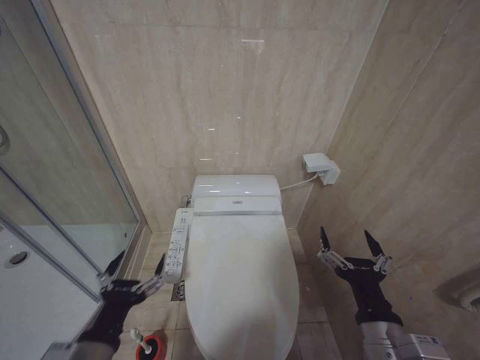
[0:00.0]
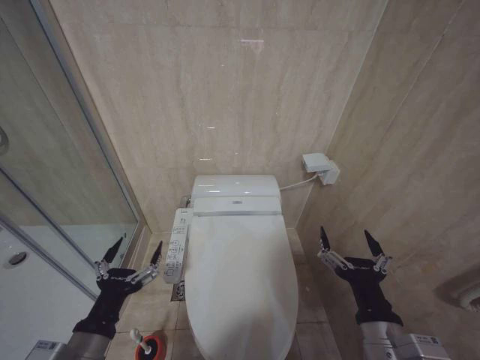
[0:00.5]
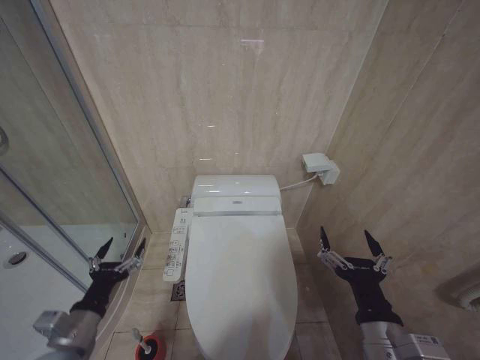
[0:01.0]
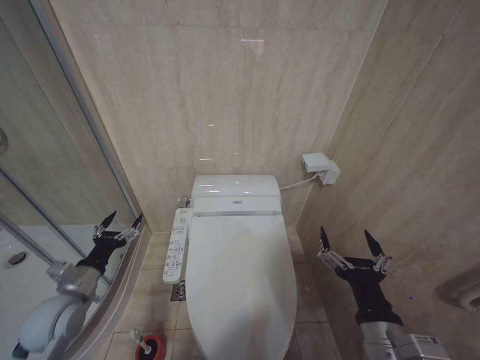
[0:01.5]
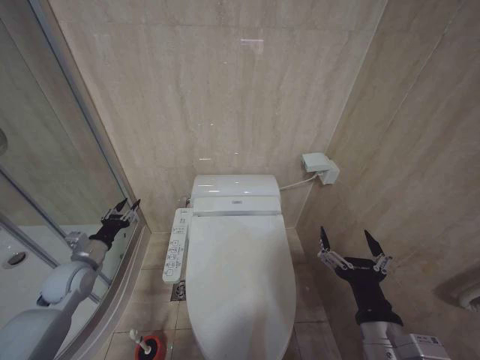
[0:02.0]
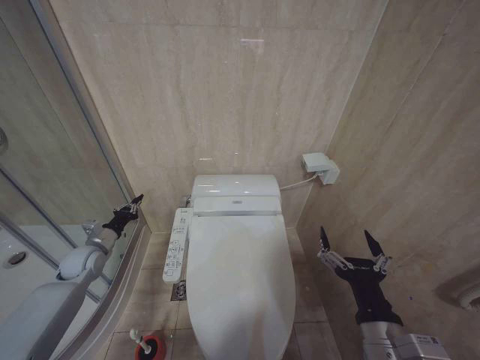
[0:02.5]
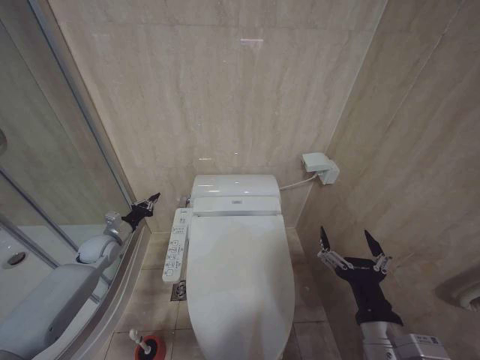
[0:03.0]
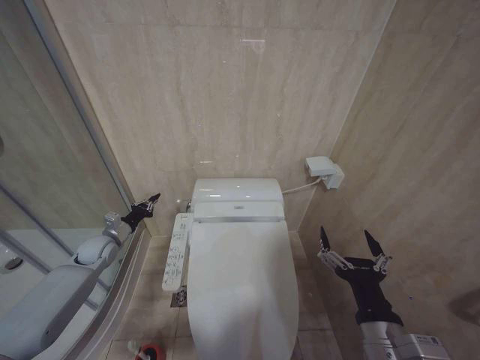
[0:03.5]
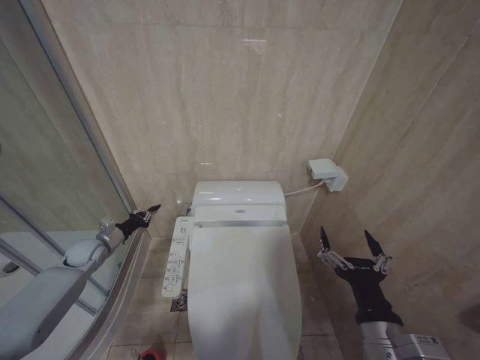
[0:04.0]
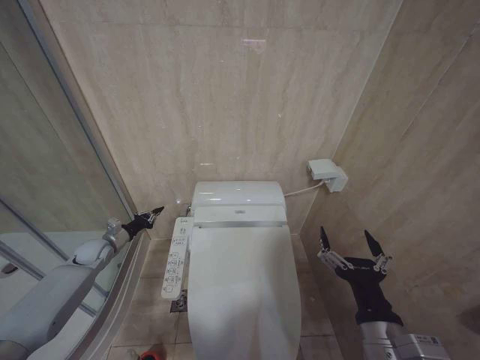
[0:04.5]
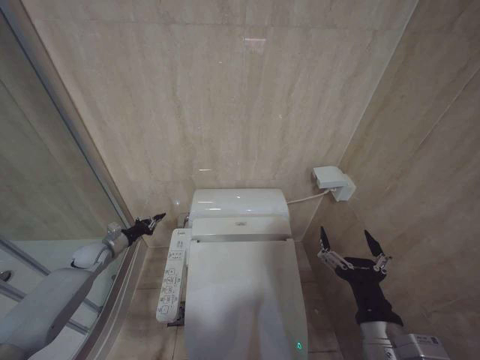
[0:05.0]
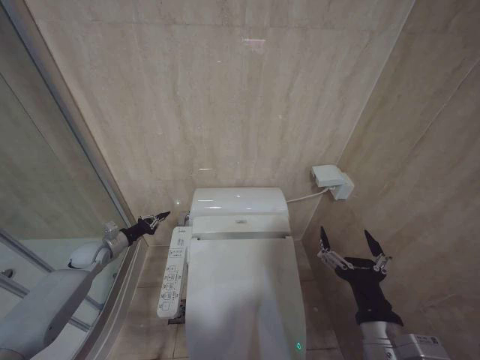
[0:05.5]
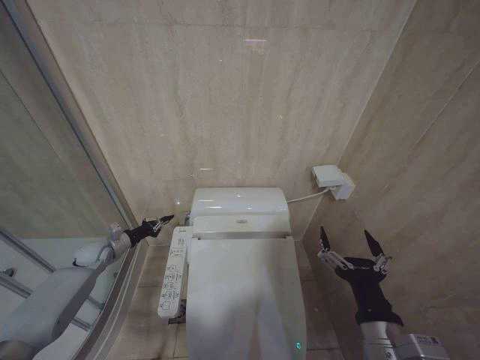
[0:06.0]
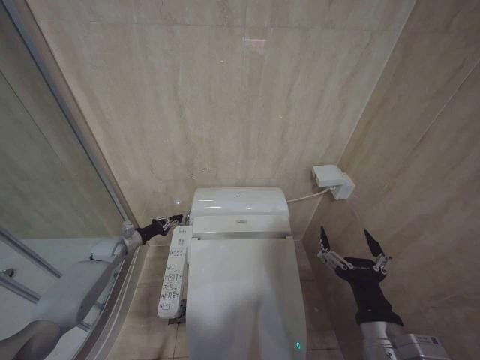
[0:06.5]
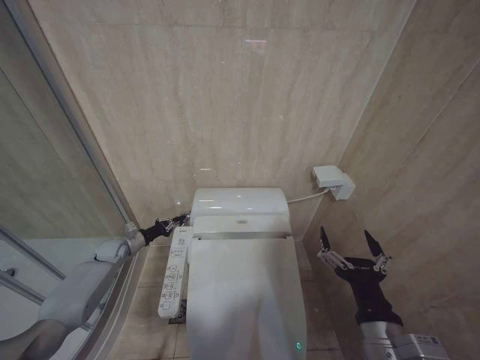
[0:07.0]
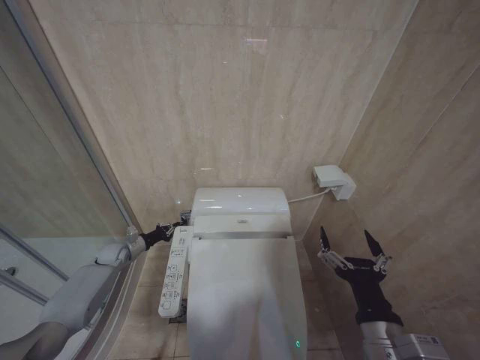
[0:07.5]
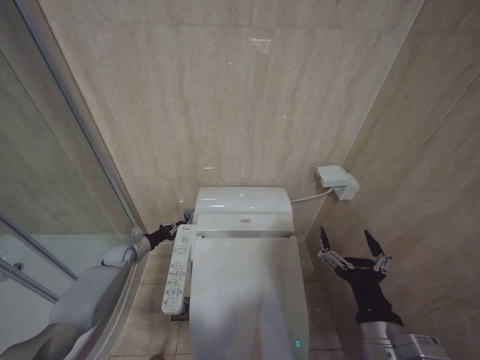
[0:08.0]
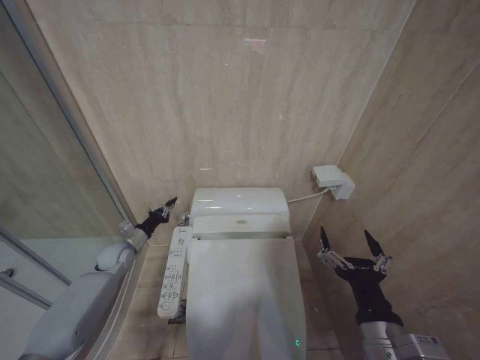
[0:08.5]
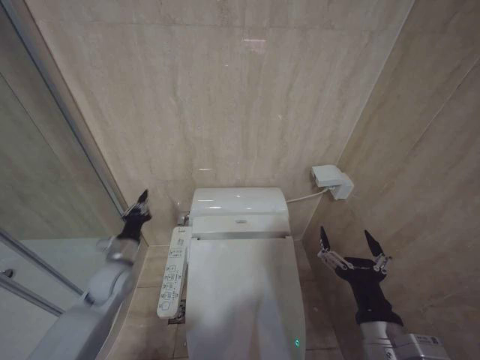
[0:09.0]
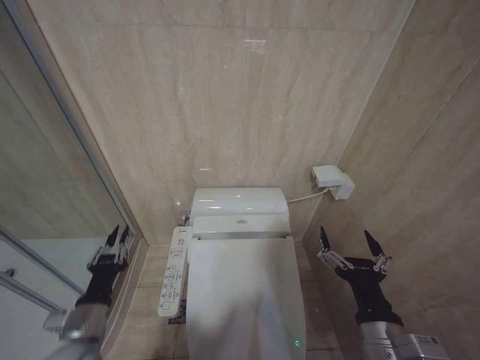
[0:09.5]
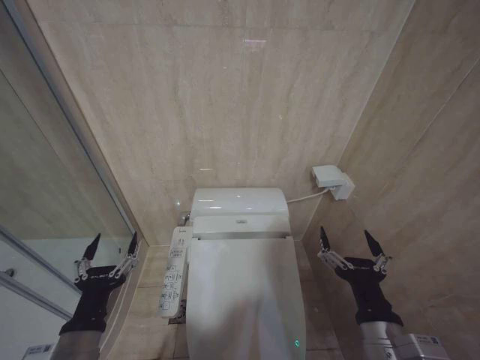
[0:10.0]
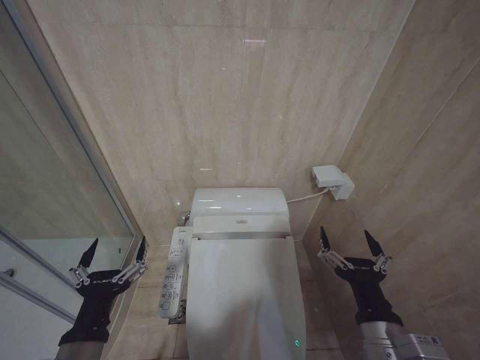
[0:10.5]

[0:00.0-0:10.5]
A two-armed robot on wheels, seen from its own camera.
Task of the whole recording: Open the toilet lid, clean the toilet bowl with a toilet brush, close the toilet lid, and flush.
0:00.0 to 0:02.0: The left gripper heads forward and to the left, covering approximately 30 cm, and closes its fingers.
0:02.0 to 0:04.0: The left gripper travels forward by some 10 cm, and closes.
0:04.0 to 0:06.5: The left gripper heads downward, covering roughly 5 cm.
0:06.5 to 0:08.5: The left gripper shifts by approximately 5 cm.
0:08.5 to 0:10.5: The left gripper moves backward, roughly 35 cm, and opens its fingers.

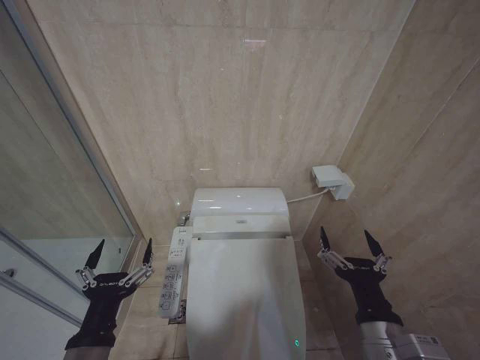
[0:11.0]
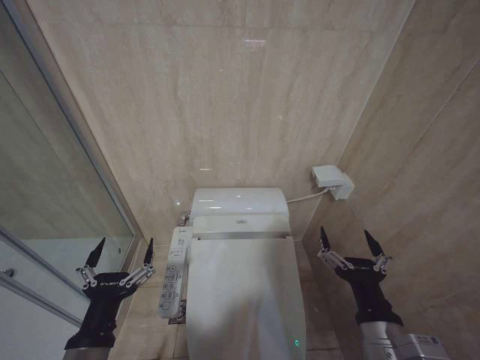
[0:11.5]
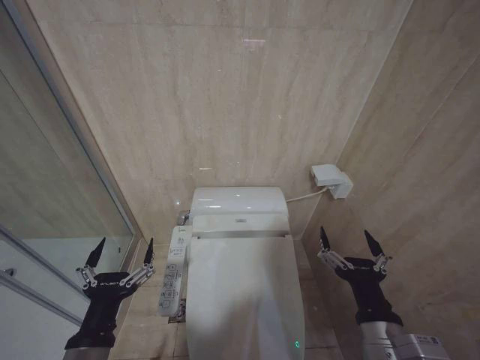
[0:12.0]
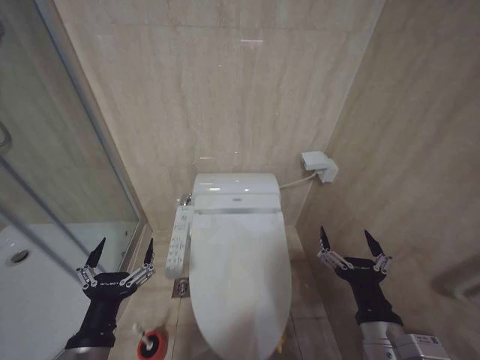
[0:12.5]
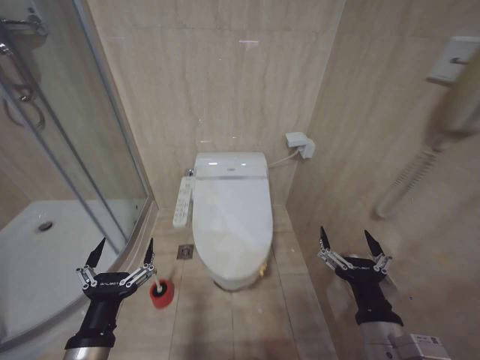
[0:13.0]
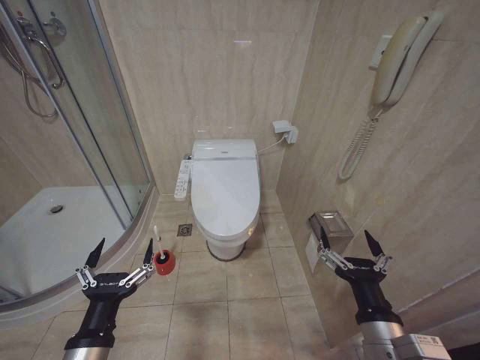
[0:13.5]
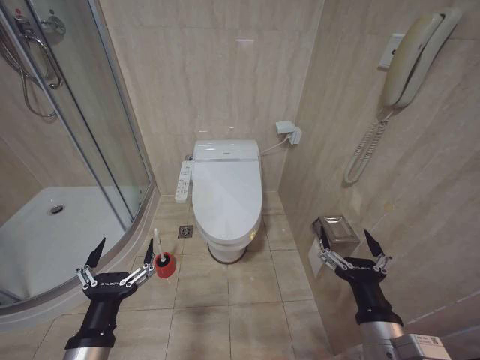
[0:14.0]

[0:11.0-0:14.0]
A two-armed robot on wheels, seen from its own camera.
Task of the whole recording: Open the toilet lid, clean the toilet bowl with a toilet brush, close the toilet lid, and flush.
0:11.0 to 0:12.5: Both grippers stay put.

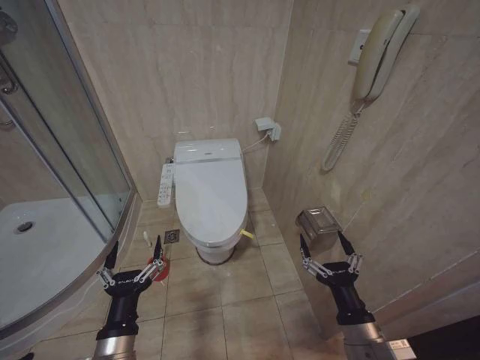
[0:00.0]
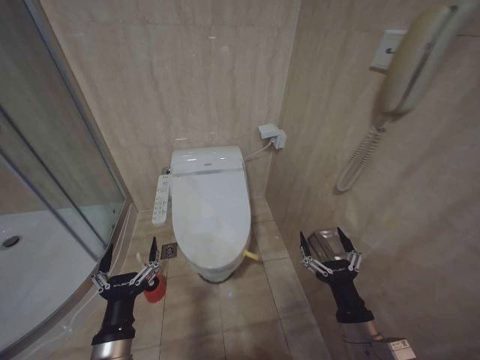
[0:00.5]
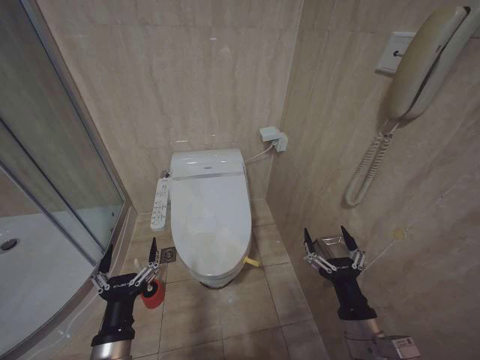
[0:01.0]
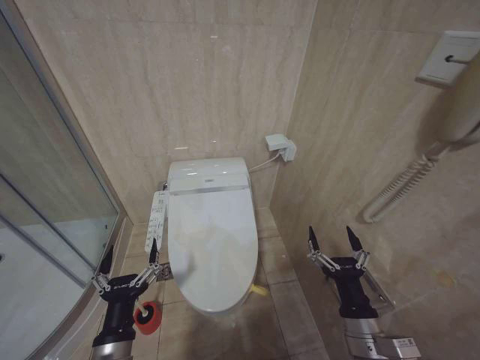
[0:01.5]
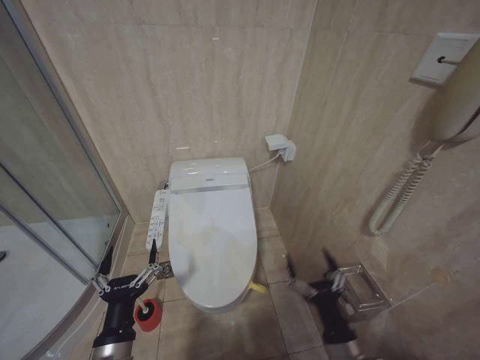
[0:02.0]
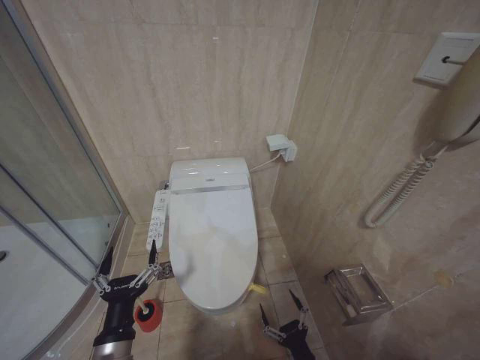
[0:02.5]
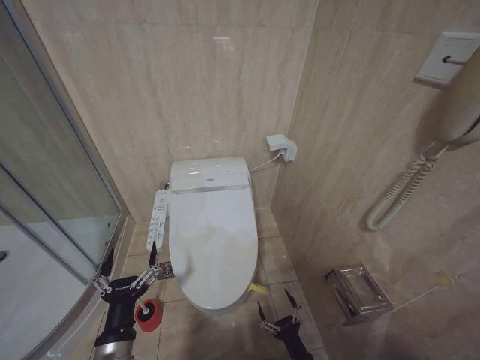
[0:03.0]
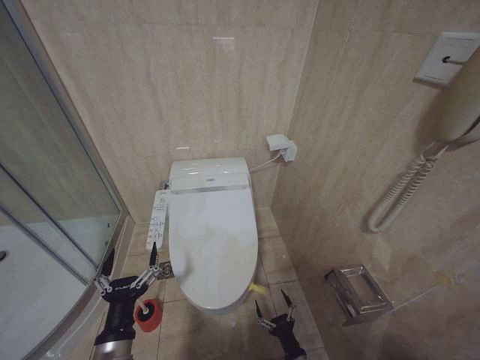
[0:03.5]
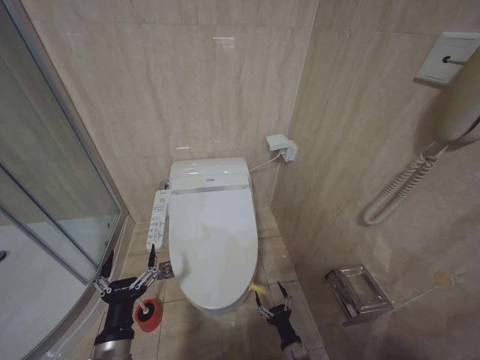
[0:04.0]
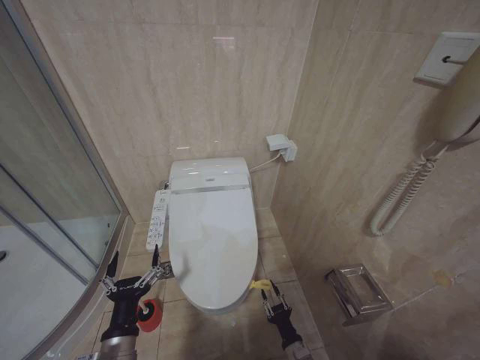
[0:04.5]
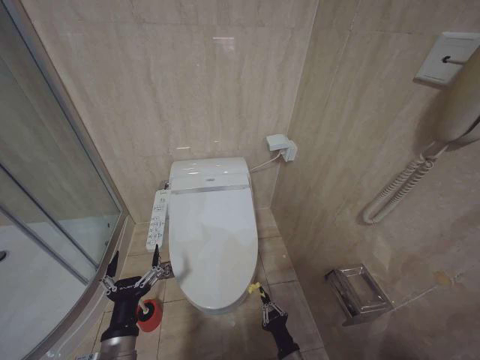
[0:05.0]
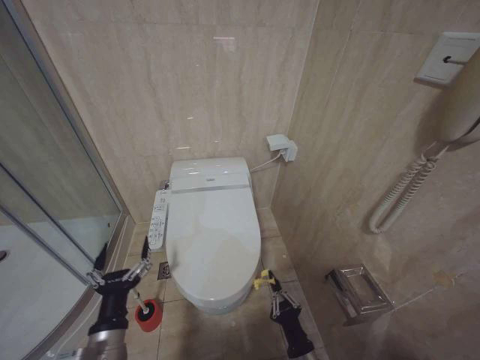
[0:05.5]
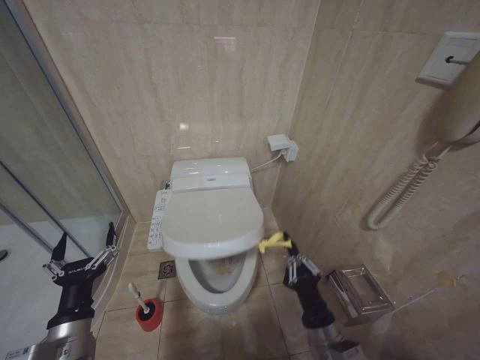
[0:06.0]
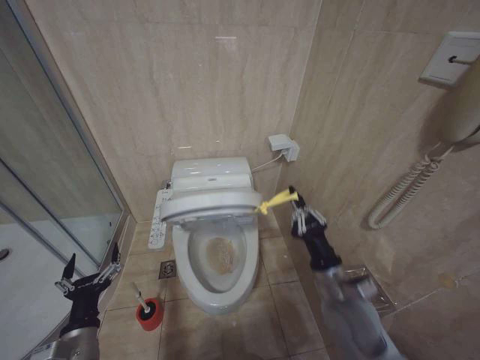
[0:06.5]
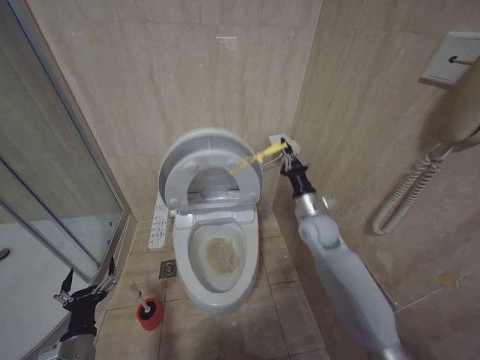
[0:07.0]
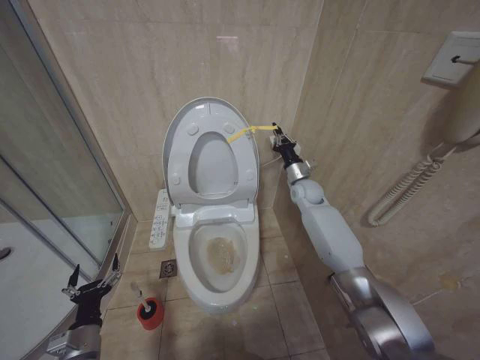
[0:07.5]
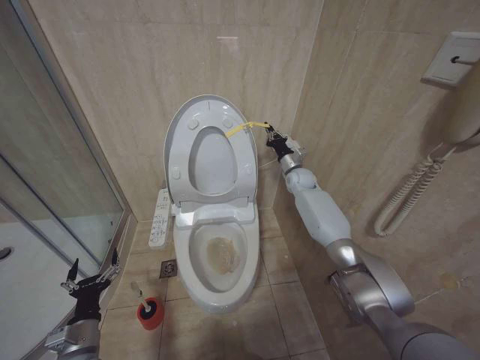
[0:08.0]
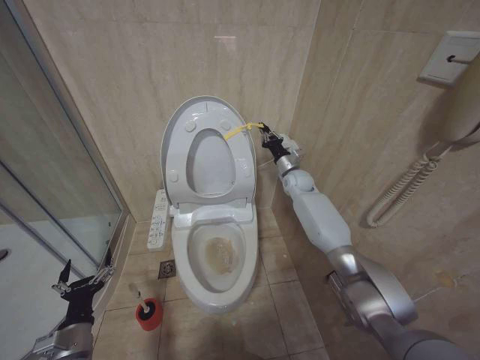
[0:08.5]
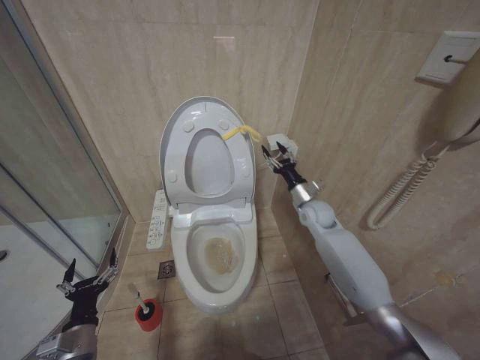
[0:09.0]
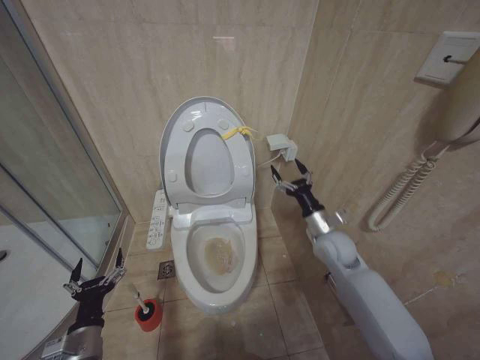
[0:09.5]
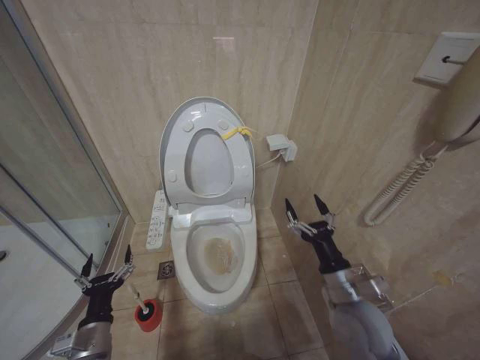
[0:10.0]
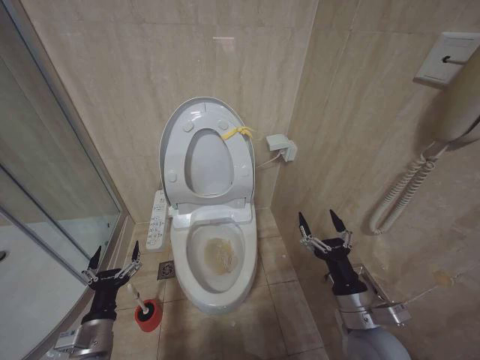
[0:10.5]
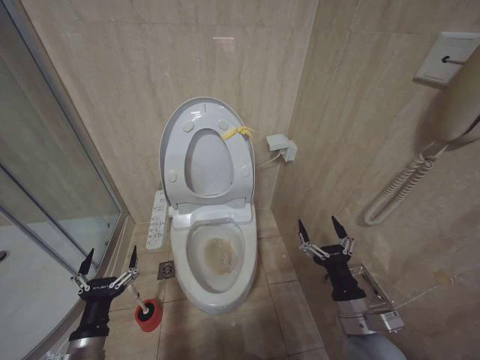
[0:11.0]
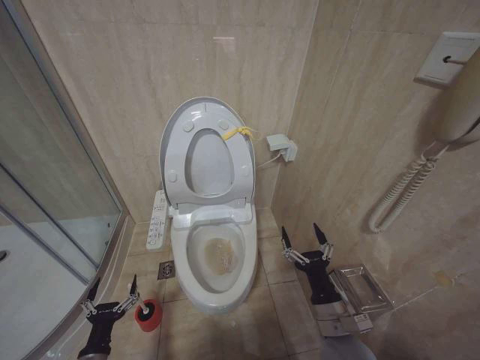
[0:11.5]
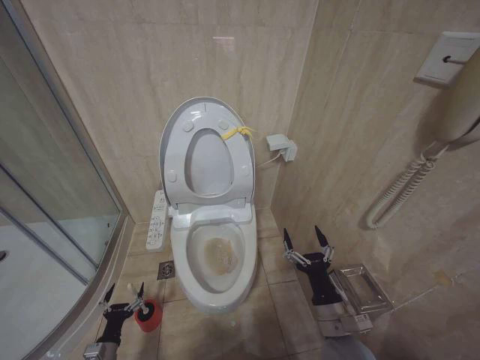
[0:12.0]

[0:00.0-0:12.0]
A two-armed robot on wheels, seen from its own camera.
Task of the whole recording: Open the toilet lid, clean the toilet bowl with a toilet brush, close the toilet lid, and flush.
0:02.0 to 0:04.0: The right gripper shifts some 25 cm downward.
0:04.0 to 0:06.0: The right gripper is displaced upward by approximately 20 cm, and closes; the left gripper is displaced to the left by roughly 5 cm.
0:06.0 to 0:08.0: The right gripper is displaced forward by roughly 50 cm. The left gripper heads downward and to the left, covering some 15 cm.
0:08.0 to 0:10.0: The right gripper is displaced backward by some 35 cm, and opens its fingers.
0:10.0 to 0:12.0: The right gripper travels downward and backward by roughly 10 cm. The left gripper heads downward, covering about 20 cm.
